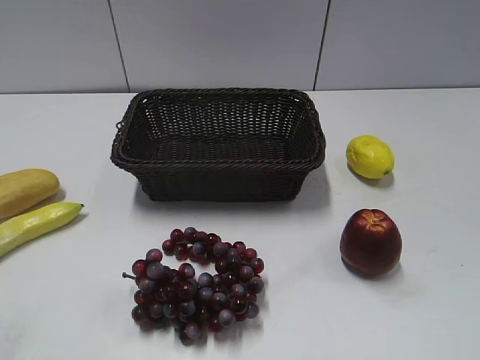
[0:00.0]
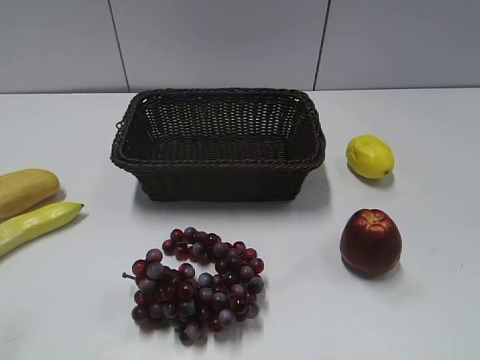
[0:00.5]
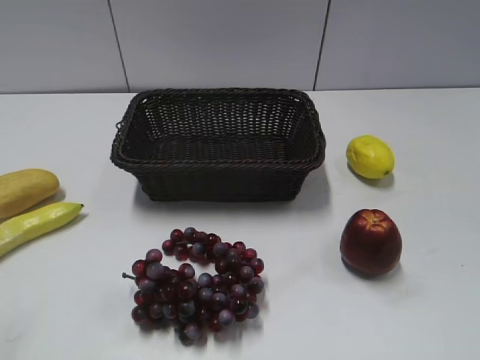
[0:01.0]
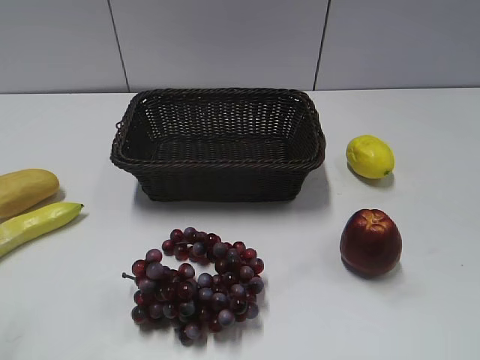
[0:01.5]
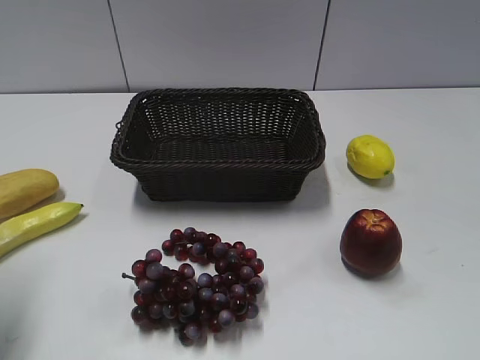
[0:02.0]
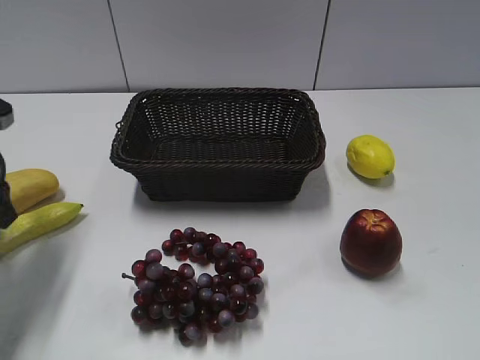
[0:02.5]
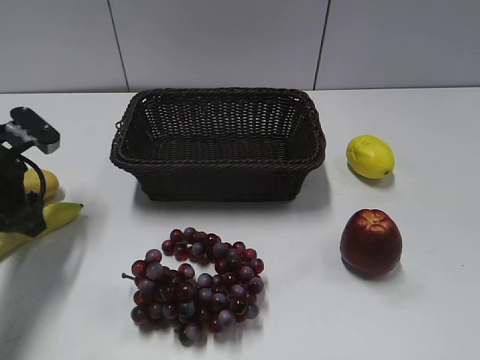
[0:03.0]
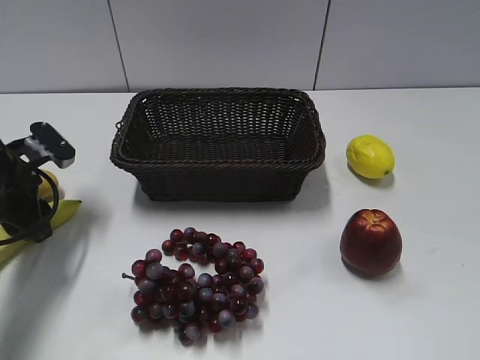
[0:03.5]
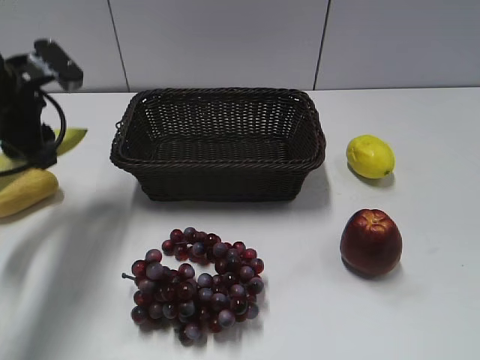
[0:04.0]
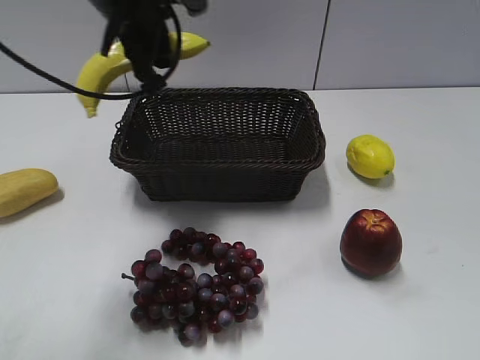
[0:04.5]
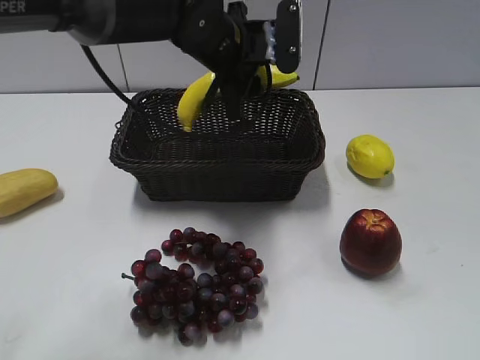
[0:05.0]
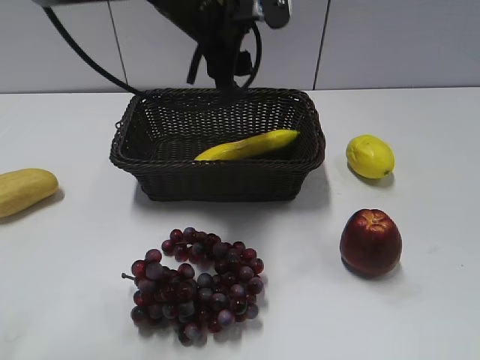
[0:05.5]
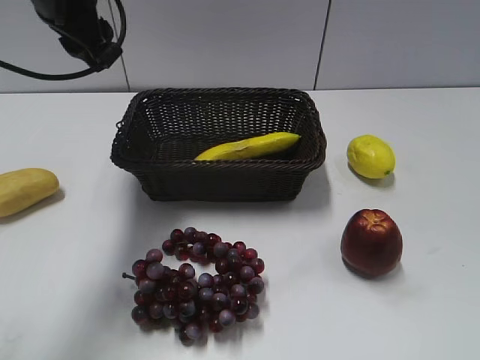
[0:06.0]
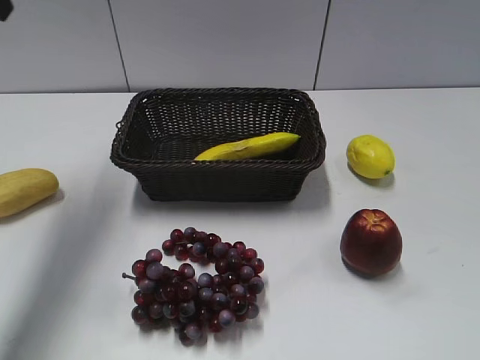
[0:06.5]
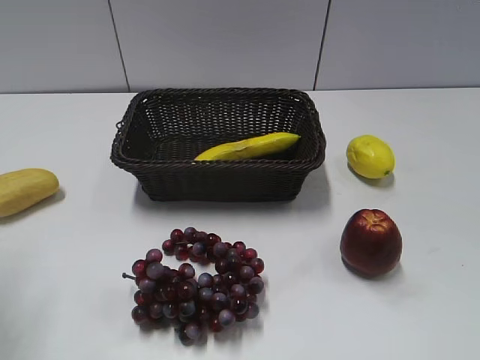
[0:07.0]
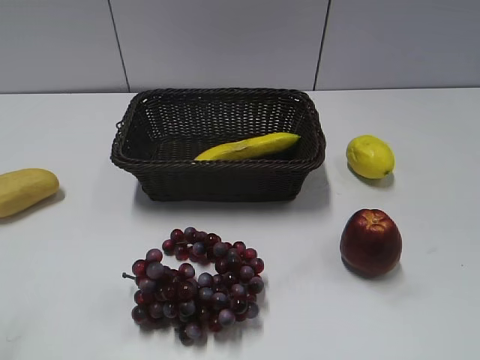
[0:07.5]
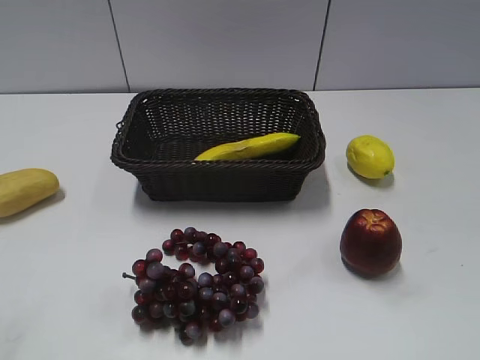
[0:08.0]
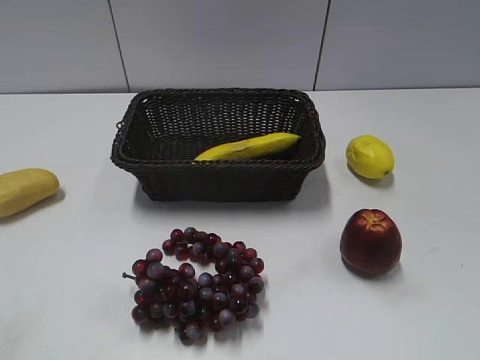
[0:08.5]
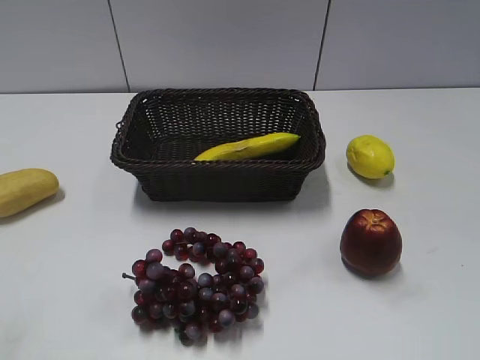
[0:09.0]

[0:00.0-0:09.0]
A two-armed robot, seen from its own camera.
Step, 0:02.5 to 0:03.5: Grasp the banana with left gripper.
Step, 0:04.0 to 0:05.0: Place the banana in the basket with left gripper.
0:02.0 to 0:04.5: The left gripper heads to the right and forward, covering roughly 30 cm, and closes its fingers.
0:04.5 to 0:07.0: The left gripper heads to the left and backward, covering about 30 cm, and opens up.

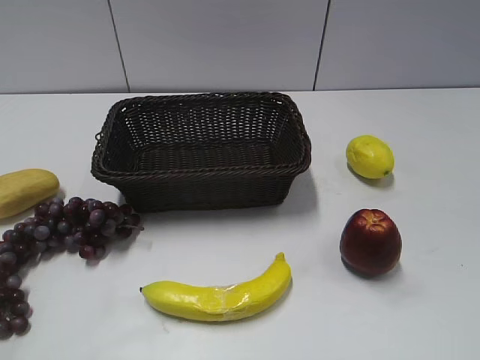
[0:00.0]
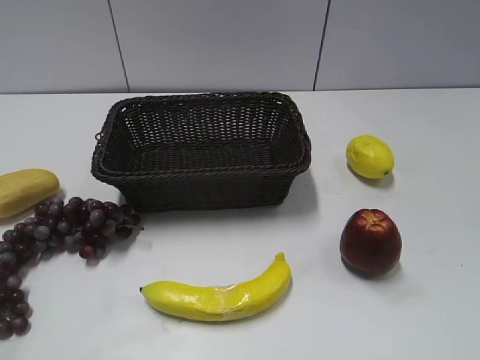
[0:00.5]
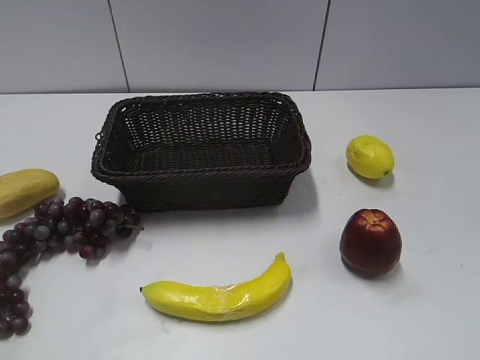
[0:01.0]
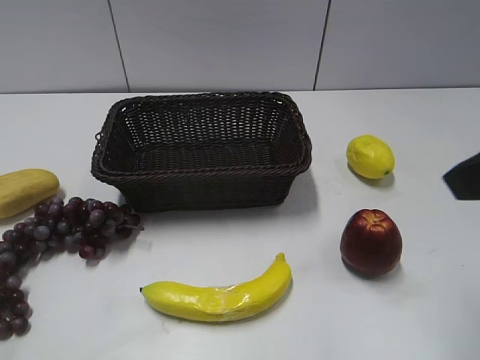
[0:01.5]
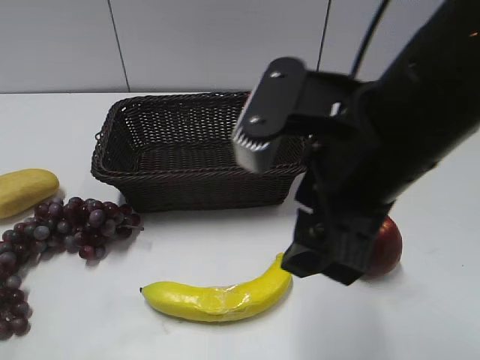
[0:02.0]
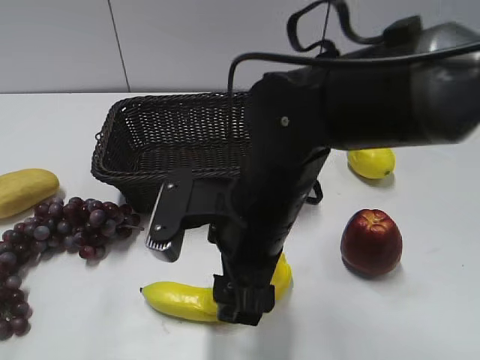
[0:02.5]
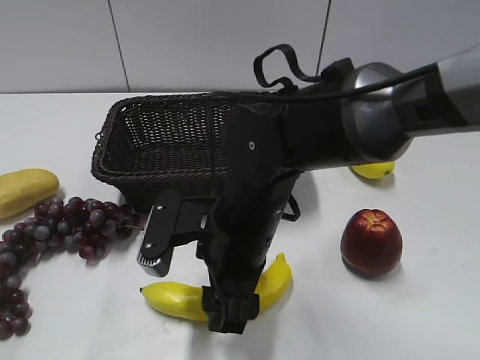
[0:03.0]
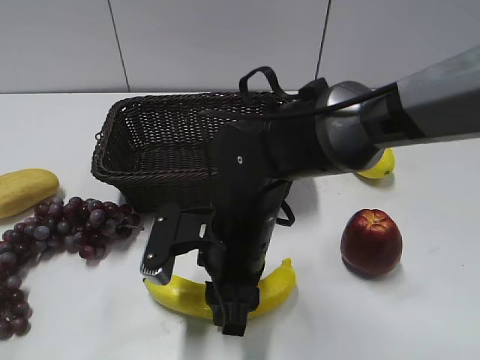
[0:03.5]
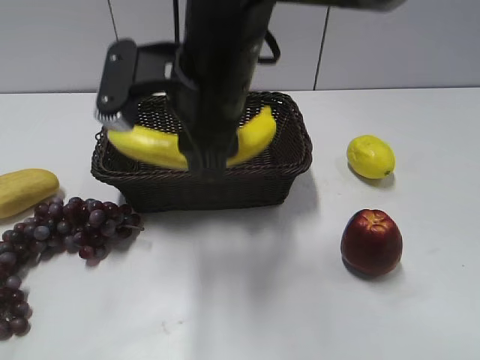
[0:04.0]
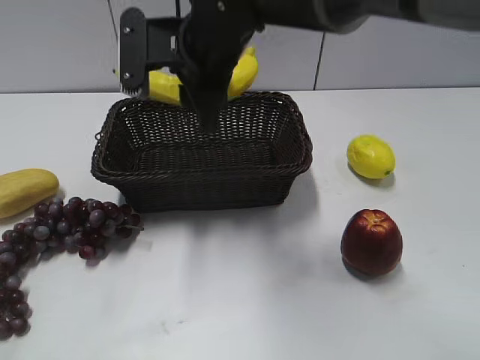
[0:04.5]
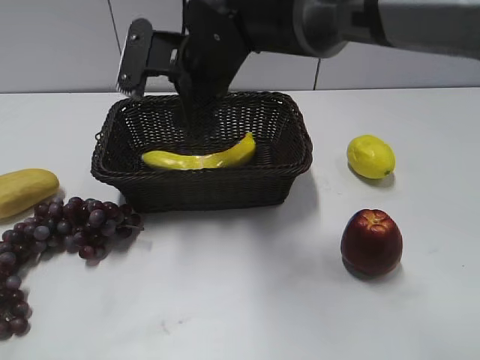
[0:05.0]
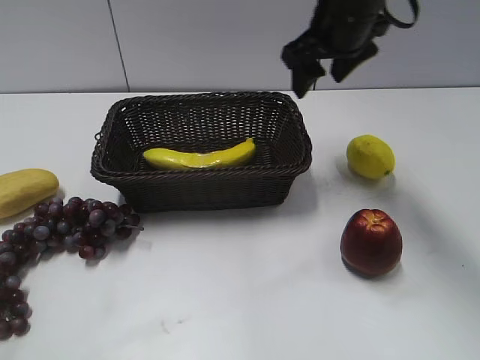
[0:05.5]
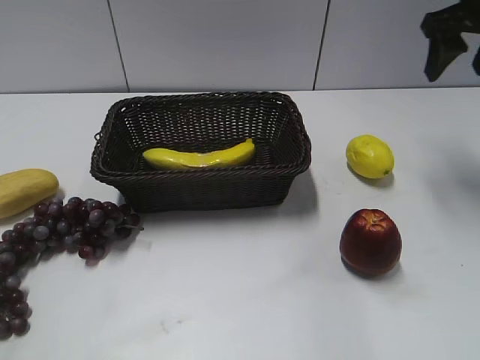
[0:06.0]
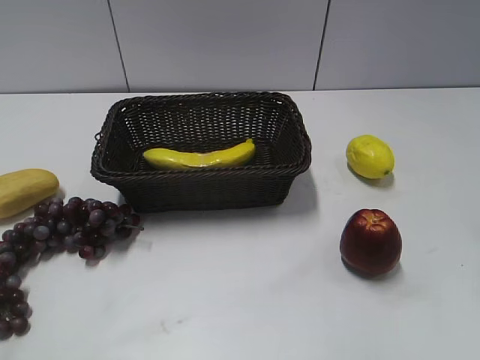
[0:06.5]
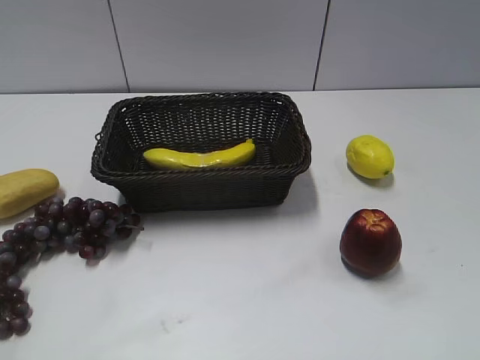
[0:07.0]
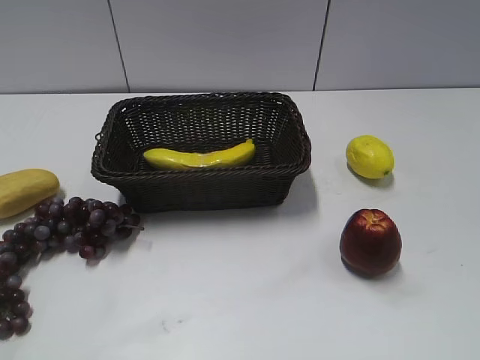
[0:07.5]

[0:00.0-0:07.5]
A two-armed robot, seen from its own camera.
Step, 0:01.5 to 0:03.5: Grasp the banana with right gripper.
Step, 0:04.0 to 0:04.5: Place the banana in the basket with right gripper.
0:02.0 to 0:04.0: The right gripper goes roughly 15 cm to the left and forward, travels downward and back again, some 15 cm each way, and closes.
0:04.0 to 0:05.5: The right gripper heads to the right and forward, covering approximately 20 cm, and opens.
0:05.5 to 0:07.5: The right gripper travels backward and to the right by about 40 cm.

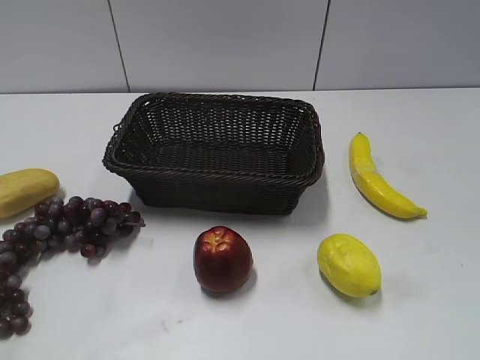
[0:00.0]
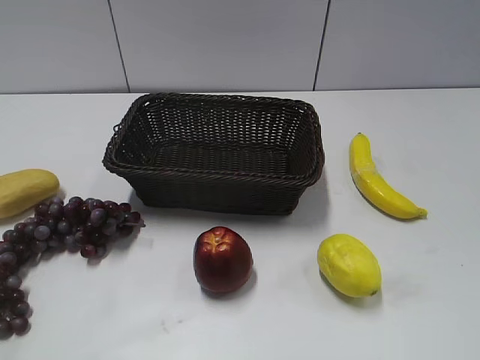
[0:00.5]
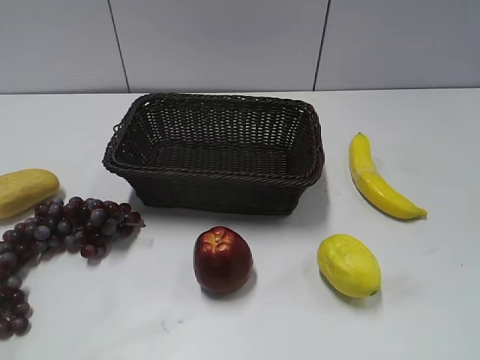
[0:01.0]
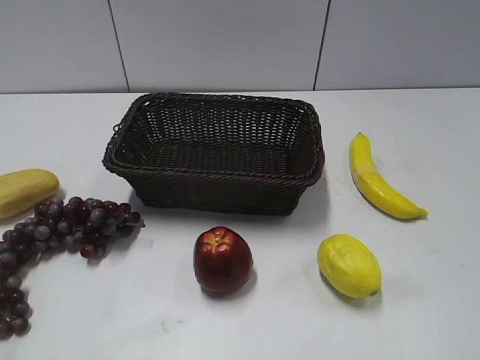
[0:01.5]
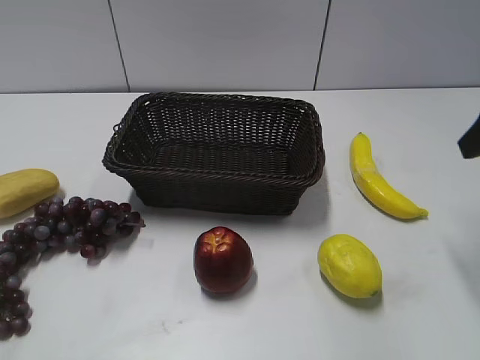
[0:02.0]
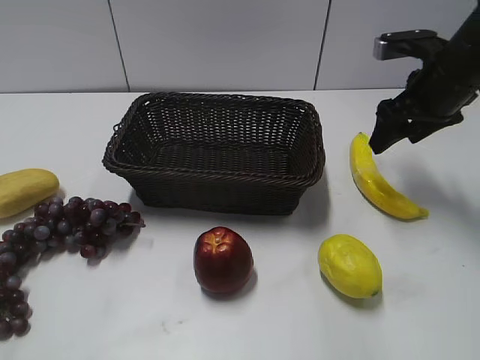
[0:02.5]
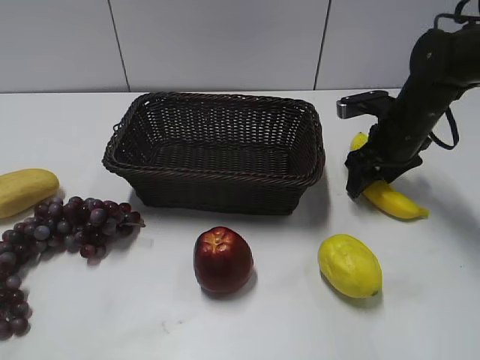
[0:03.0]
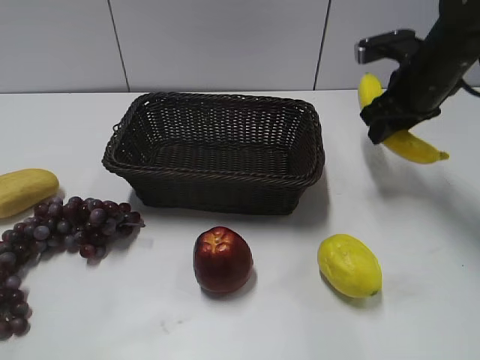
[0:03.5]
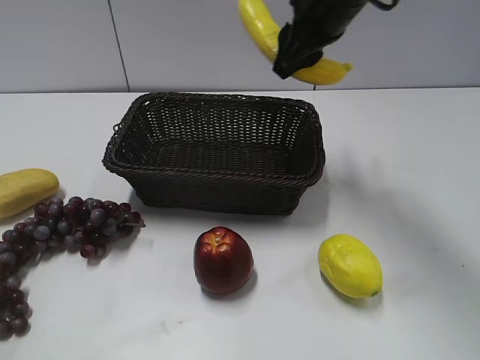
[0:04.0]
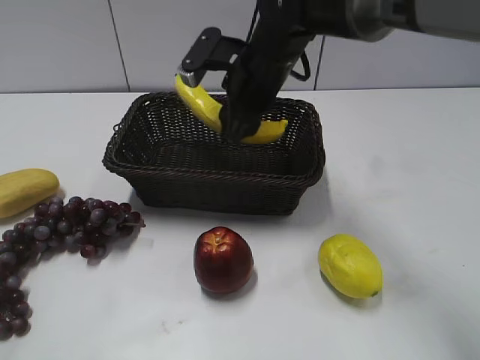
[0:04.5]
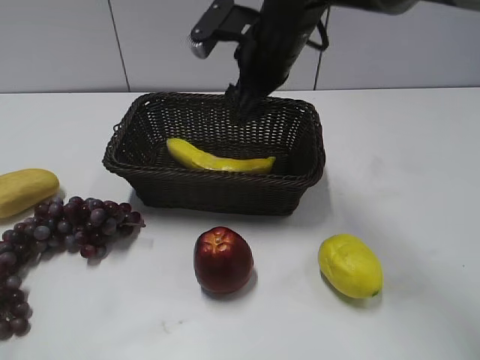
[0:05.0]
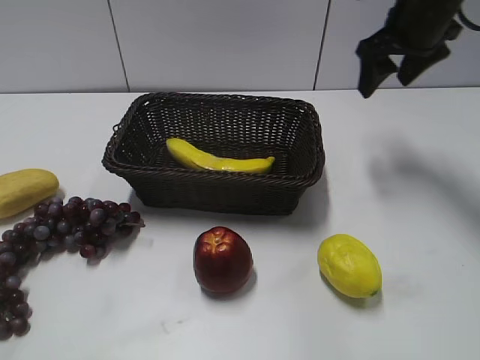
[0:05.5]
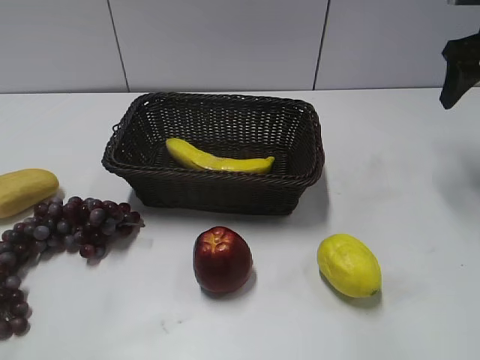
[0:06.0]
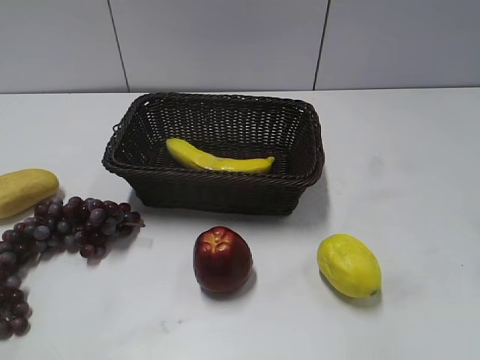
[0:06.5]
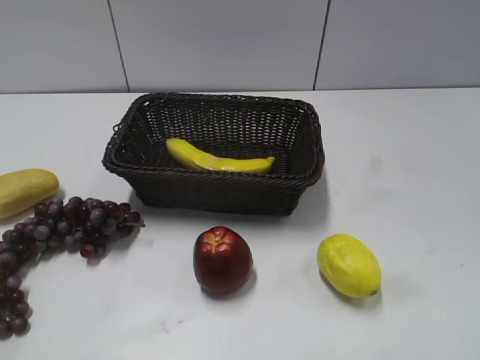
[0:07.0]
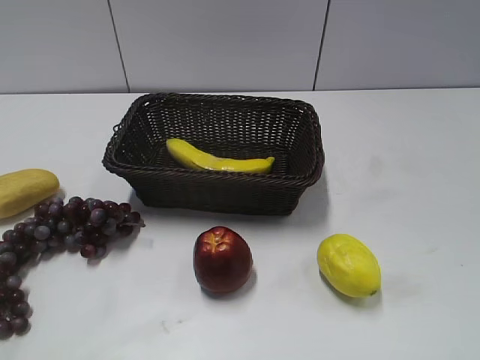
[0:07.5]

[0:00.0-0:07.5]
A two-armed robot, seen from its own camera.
Step, 0:02.0 to 0:03.0: Grasp the banana with right gripper.
Step, 0:03.5 to 0:04.5: Place the banana in the basket with right gripper.
0:02.0 to 0:04.0: The right gripper shifts approximately 25 cm to the left and forward, and closes its fingers.
0:04.0 to 0:05.5: The right gripper moves to the right, some 10 cm, and opens.
0:05.5 to 0:07.5: The right gripper shifts roughly 40 cm backward.
